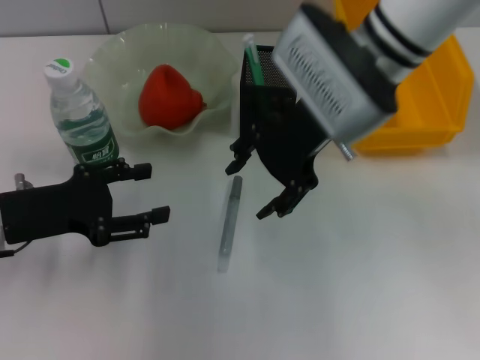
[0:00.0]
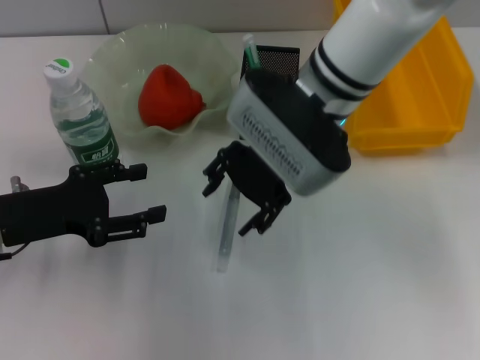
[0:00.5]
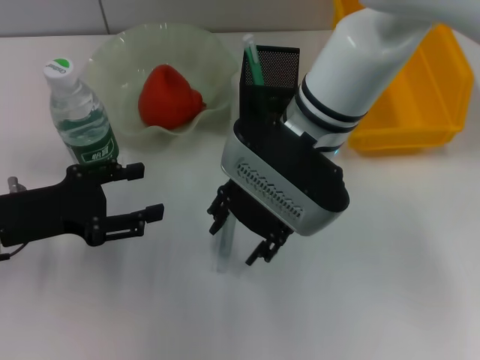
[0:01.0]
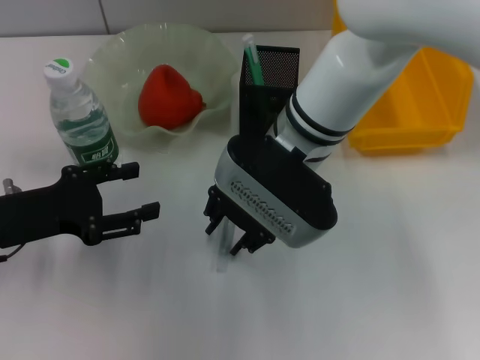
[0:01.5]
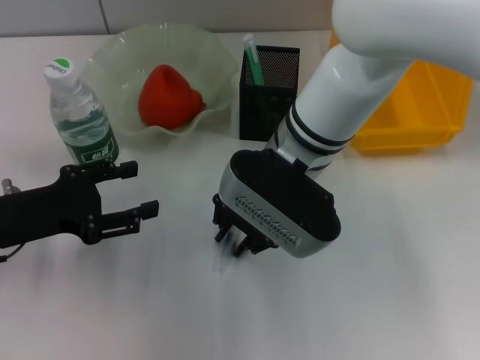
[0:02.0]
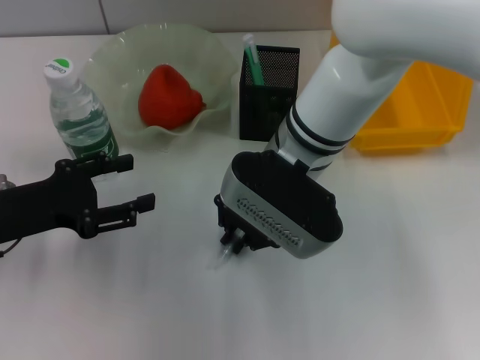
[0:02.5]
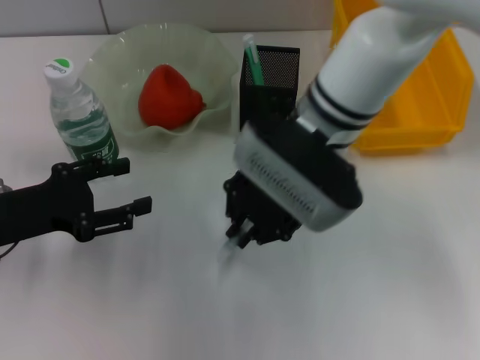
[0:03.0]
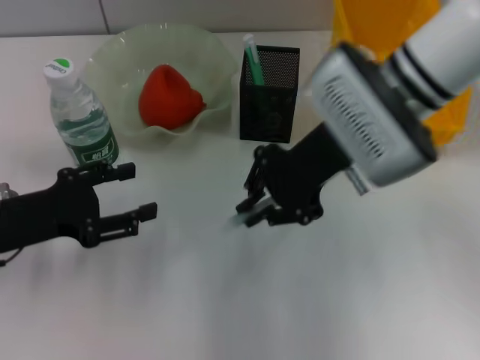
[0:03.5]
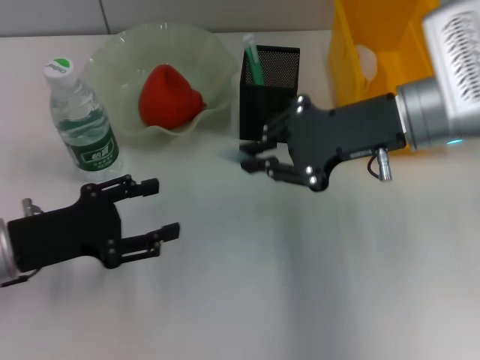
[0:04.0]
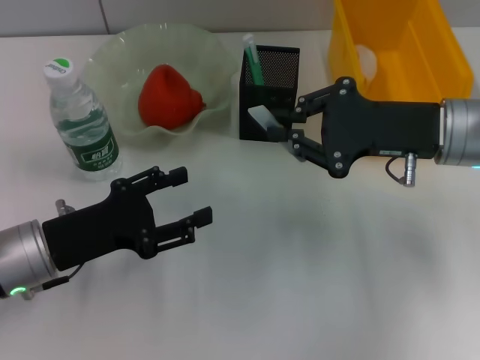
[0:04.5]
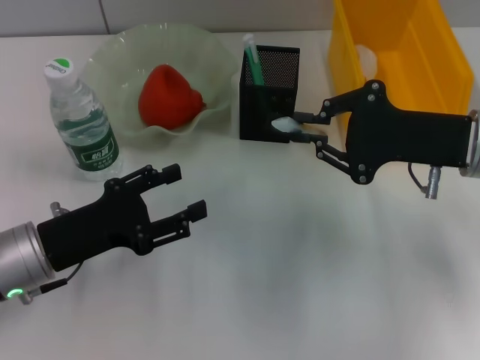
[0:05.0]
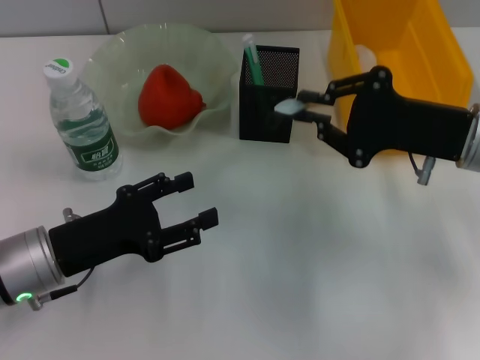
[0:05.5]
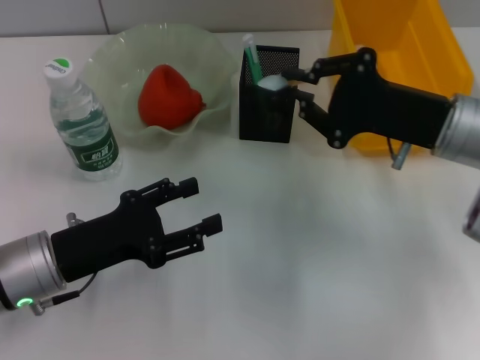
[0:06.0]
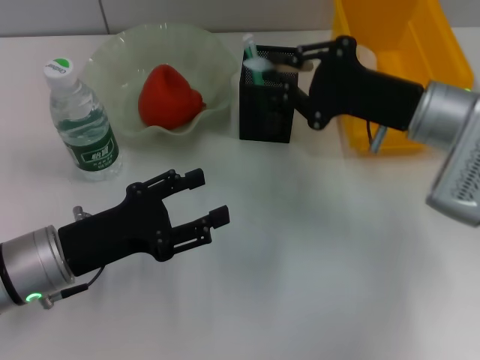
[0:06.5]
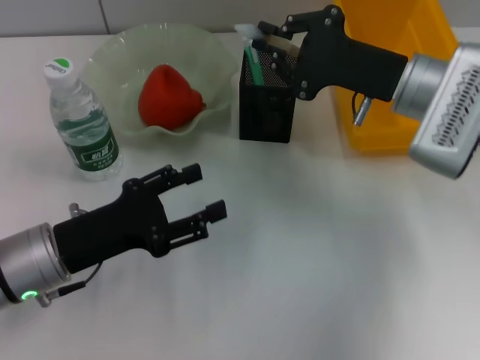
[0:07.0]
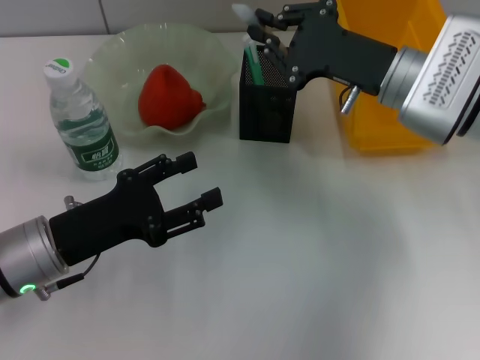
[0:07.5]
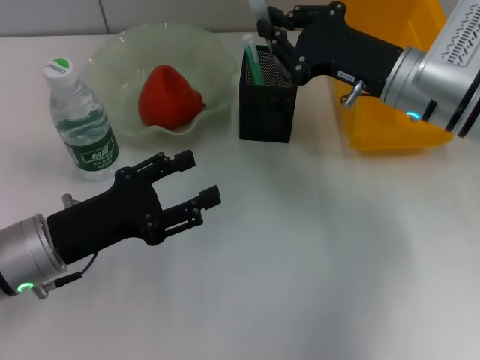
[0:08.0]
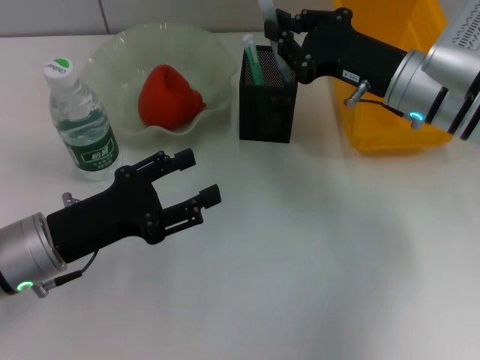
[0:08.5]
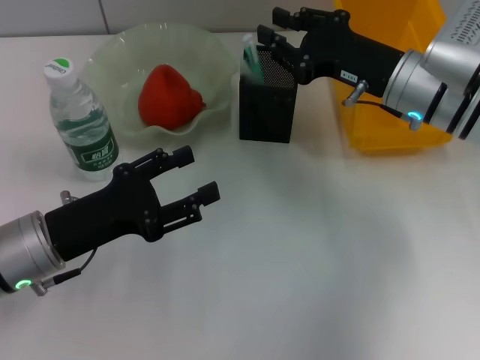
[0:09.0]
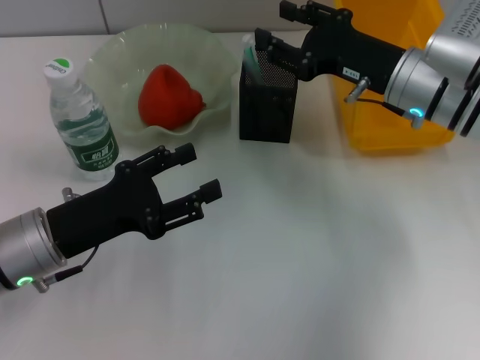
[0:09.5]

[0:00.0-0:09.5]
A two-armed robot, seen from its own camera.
Step, 0.0 to 2.5 s: Grab the gray glue with the right hand.
Step, 3.0 to 9.5 s: Place the gray glue into the pen holder with the right hand.
0.0 to 2.0 s: The right gripper moves downward and to the left, approximately 10 cm, and closes its fingers.
2.0 to 4.0 s: The right gripper moves to the right, approximately 15 cm.
4.0 to 5.5 s: The right gripper is displaced to the right by about 5 cm.
5.5 to 7.5 s: The right gripper shifts about 10 cm forward and to the left.
7.5 to 9.5 s: The right gripper opens its fingers.

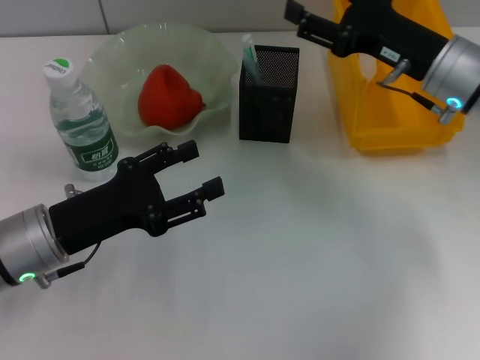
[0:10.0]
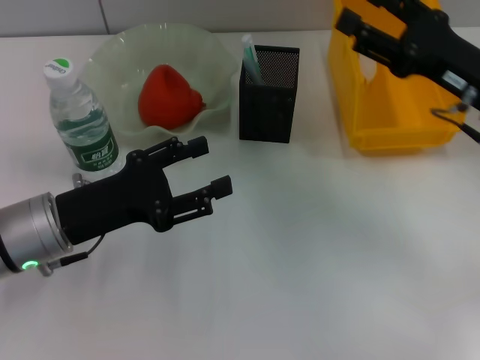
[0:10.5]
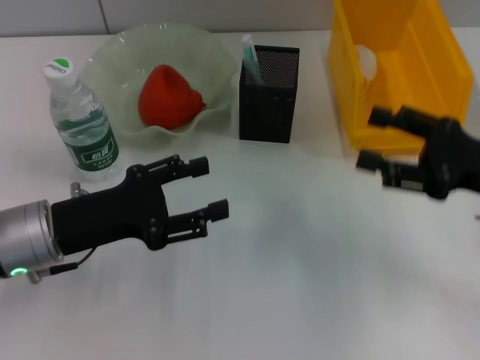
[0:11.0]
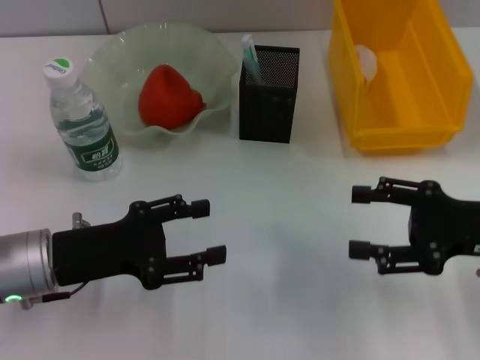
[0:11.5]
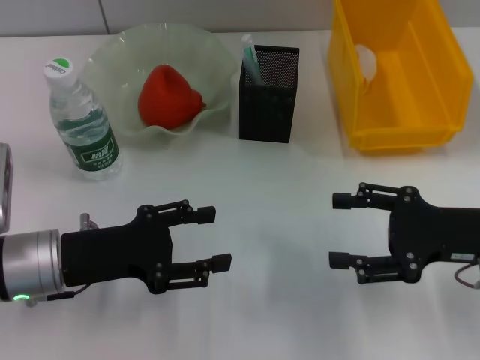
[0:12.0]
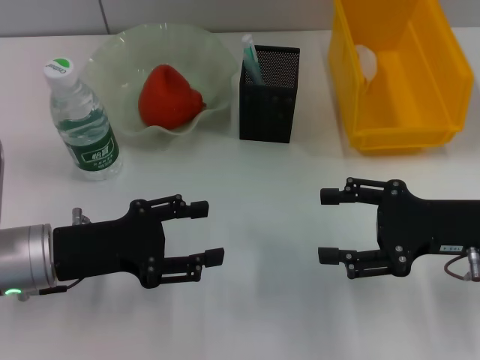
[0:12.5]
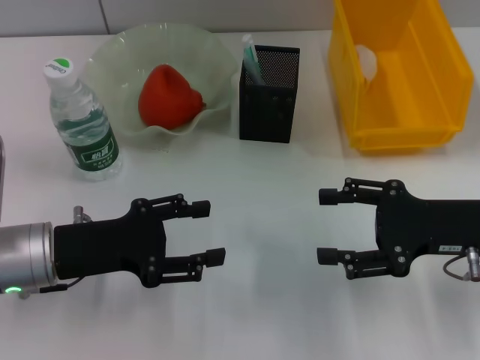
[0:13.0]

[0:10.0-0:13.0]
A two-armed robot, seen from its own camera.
10.0 to 11.5 s: The right gripper goes about 15 cm backward and to the right.
11.5 to 13.0 s: There are only small adjustments of the grippers.

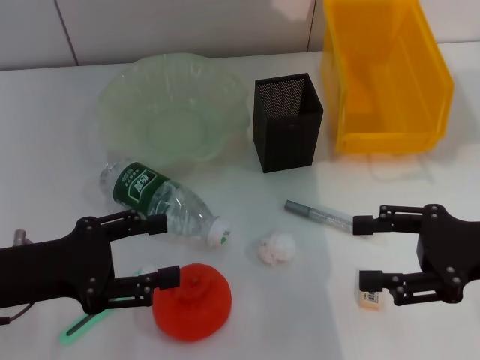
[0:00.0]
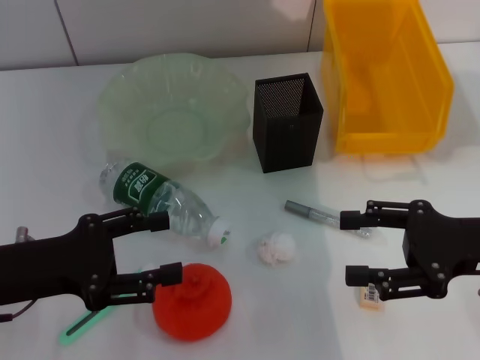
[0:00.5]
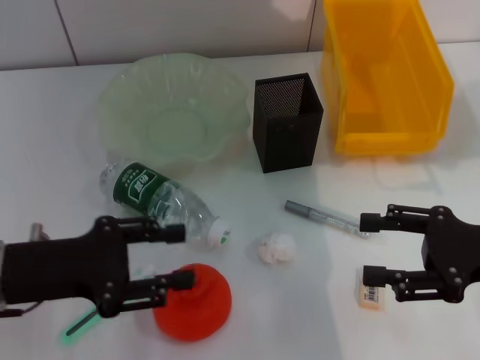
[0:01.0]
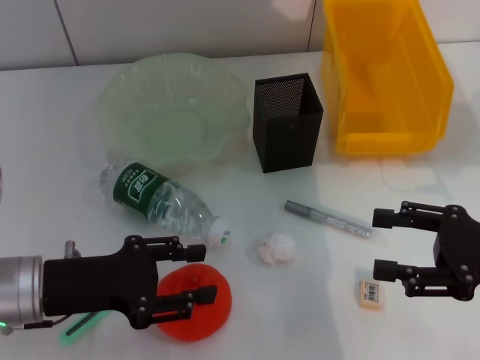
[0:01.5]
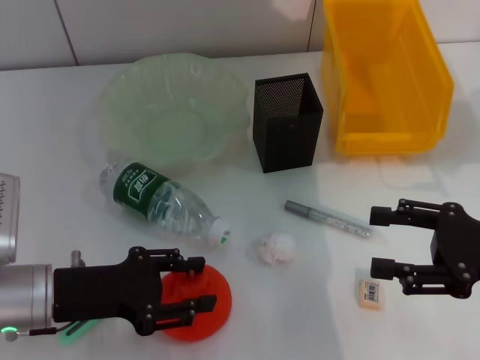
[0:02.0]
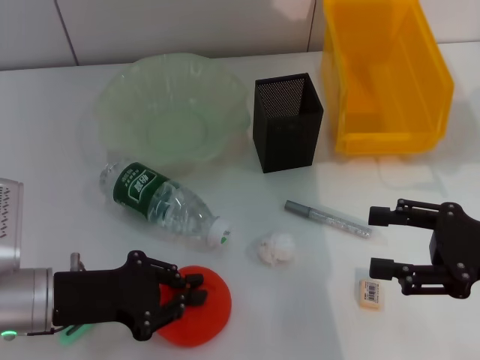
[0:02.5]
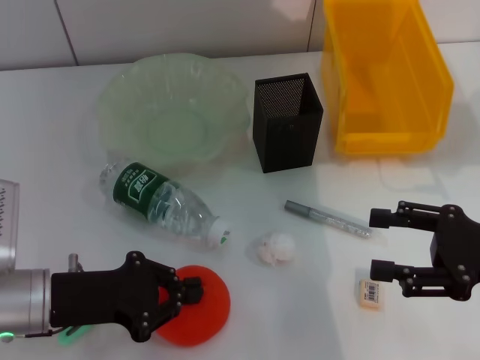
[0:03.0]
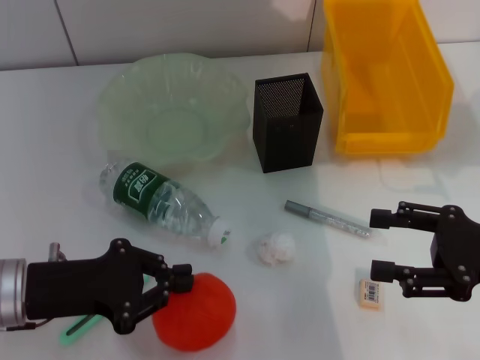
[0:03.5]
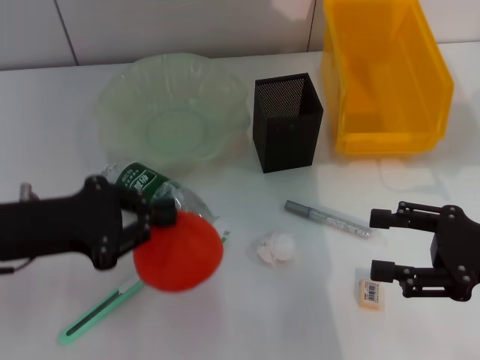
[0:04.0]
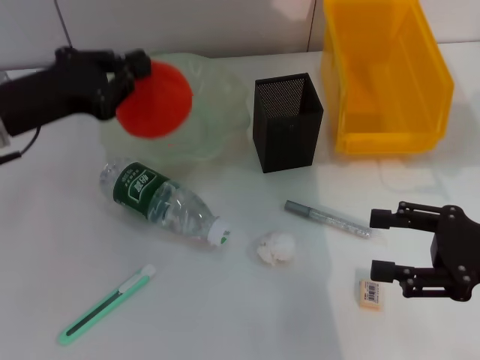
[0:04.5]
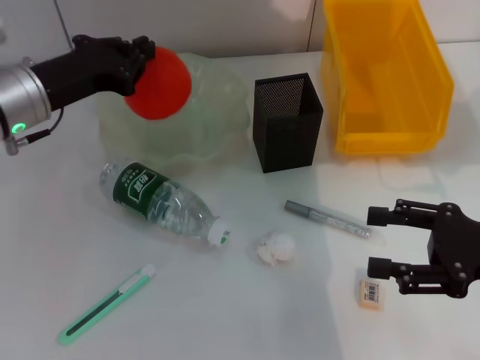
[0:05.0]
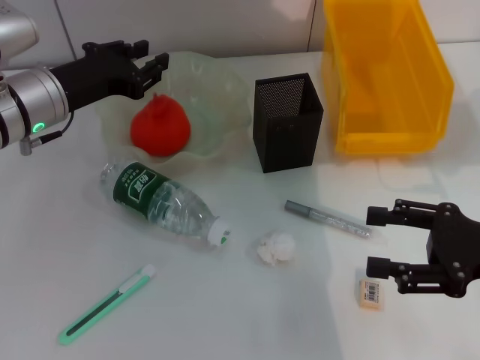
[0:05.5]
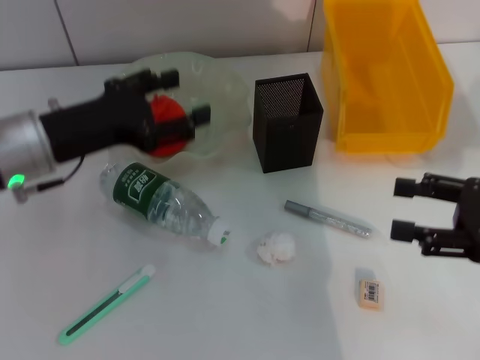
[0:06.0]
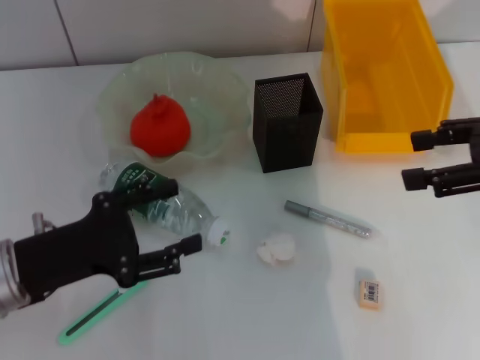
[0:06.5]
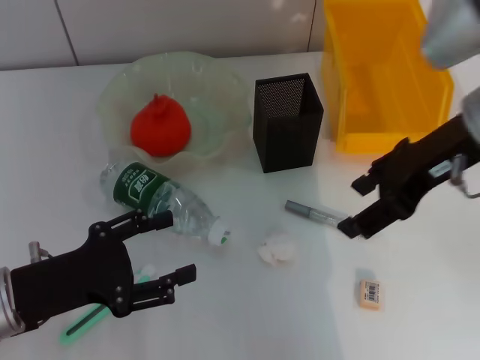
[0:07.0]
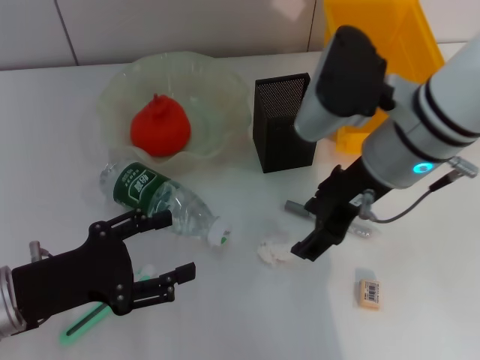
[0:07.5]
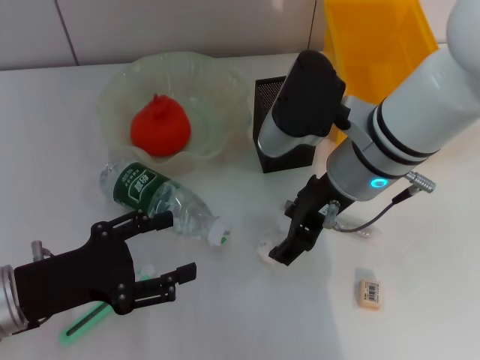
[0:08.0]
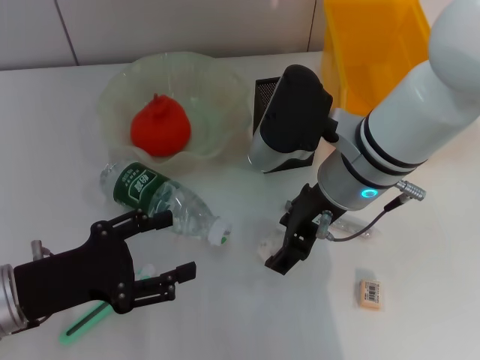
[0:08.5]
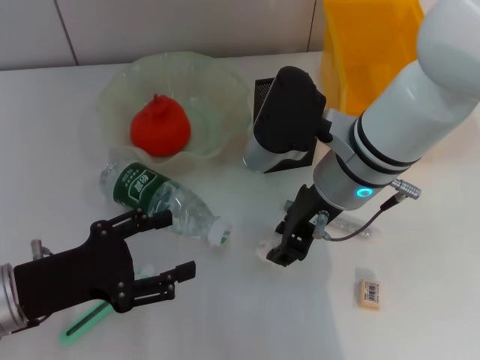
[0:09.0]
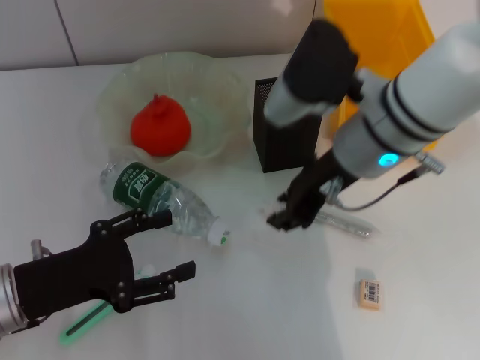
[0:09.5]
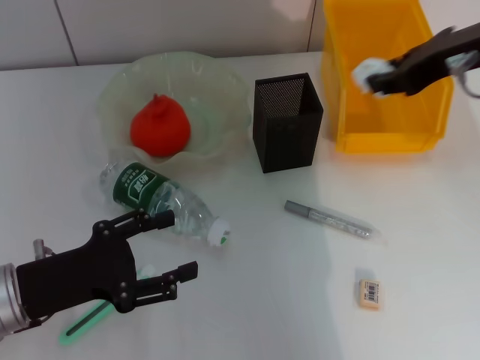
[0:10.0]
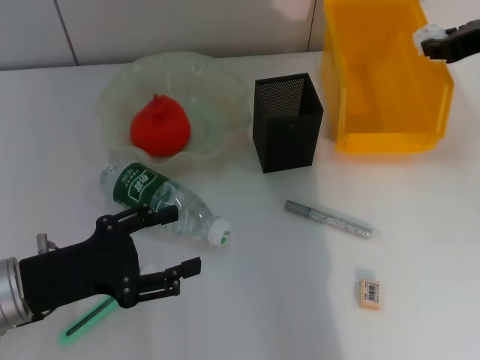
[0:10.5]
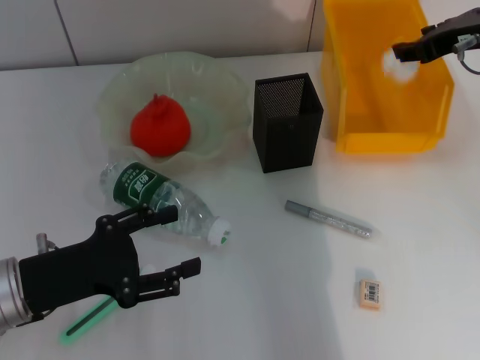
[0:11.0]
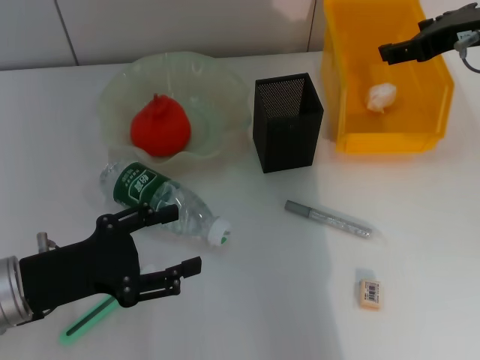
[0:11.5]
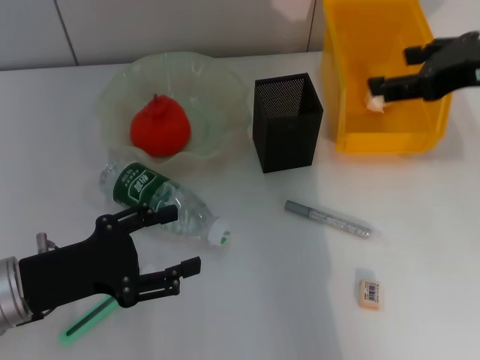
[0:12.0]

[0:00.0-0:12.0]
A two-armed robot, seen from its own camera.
Step, 0.0 to 3.0 s: Grab the orange with the left hand.
Step, 3.5 to 5.5 s: Place the orange into the fruit bowl with the left hand.
Step, 6.0 to 8.5 s: Grab the paper ball with the right hand.
Step, 9.0 to 11.0 s: Place the paper ball into the trash can with the right hand.
0.0 to 2.0 s: The left gripper ends up roughly 5 cm from where it was.
2.0 to 4.0 s: The left gripper travels upward by approximately 5 cm, and closes its fingers.
4.0 to 6.0 s: The left gripper is displaced forward by some 5 cm, and opens.
6.0 to 8.0 s: The right gripper travels to the left and forward by about 25 cm. The left gripper moves backward and downward, some 15 cm.
8.0 to 10.0 s: The right gripper goes some 15 cm to the right and upward, and closes its fingers.
10.0 to 12.0 s: The right gripper travels forward and back again, some 5 cm each way, and opens its fingers.

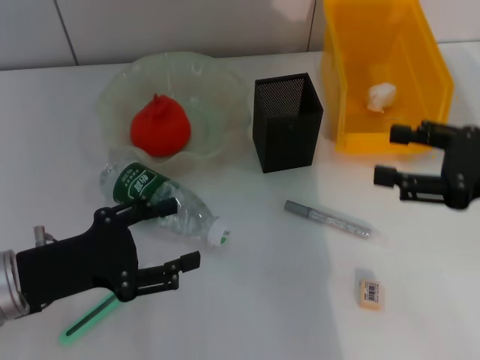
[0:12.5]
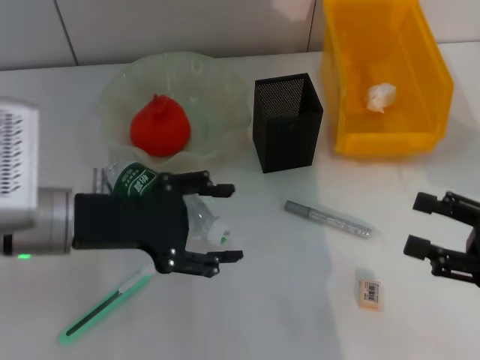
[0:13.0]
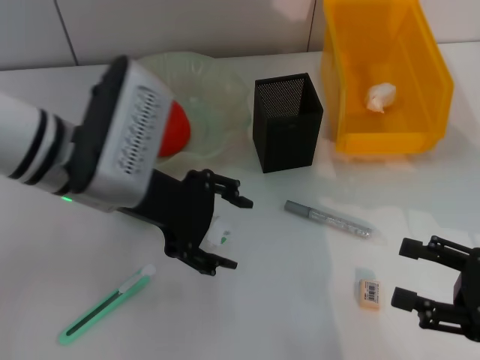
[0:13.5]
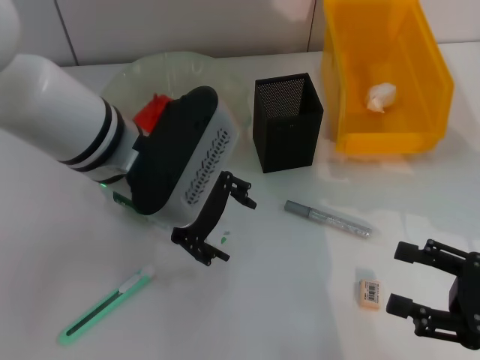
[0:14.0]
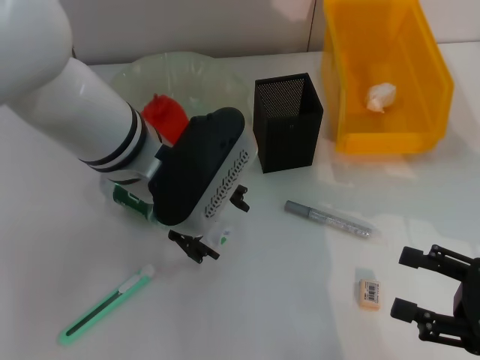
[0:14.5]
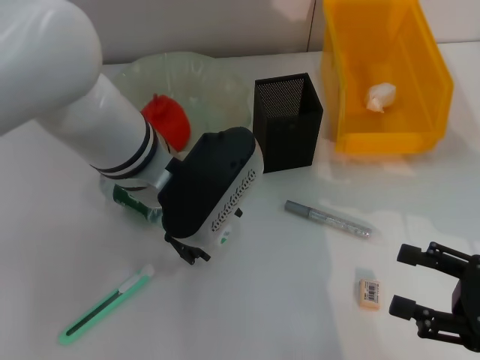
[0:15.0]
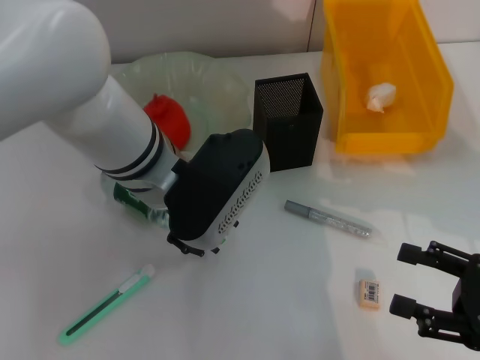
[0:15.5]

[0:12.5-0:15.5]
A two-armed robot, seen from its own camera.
12.5 to 14.0 s: The left gripper moves to the right, upward and forward, approximately 20 cm. The right gripper heads backward and downward, covering some 10 cm.
14.0 to 15.5 s: The grippers stay close to where they were, moving slightly.
